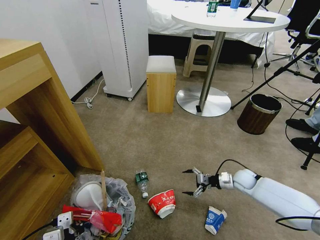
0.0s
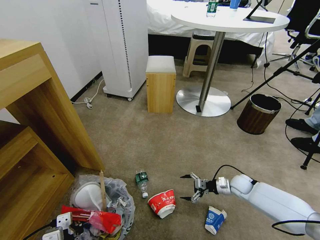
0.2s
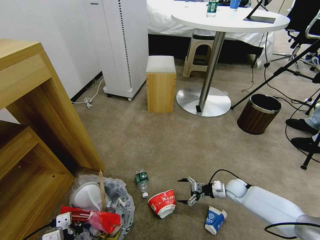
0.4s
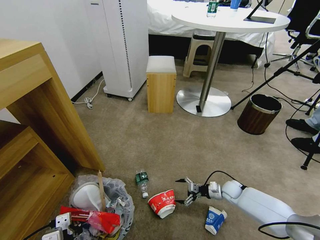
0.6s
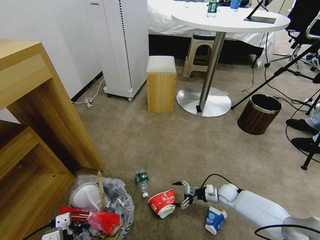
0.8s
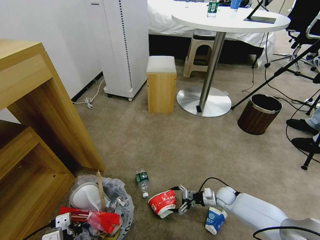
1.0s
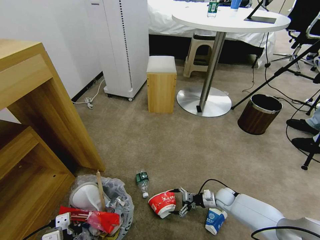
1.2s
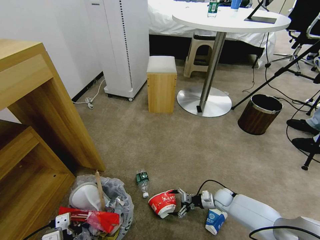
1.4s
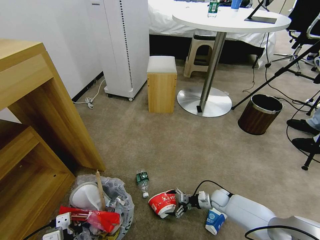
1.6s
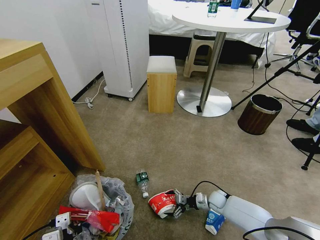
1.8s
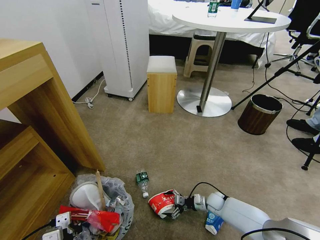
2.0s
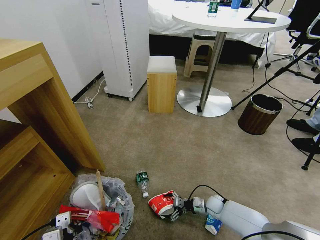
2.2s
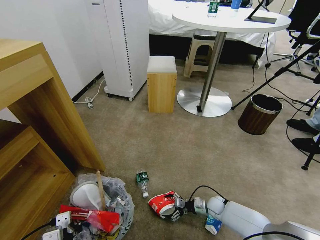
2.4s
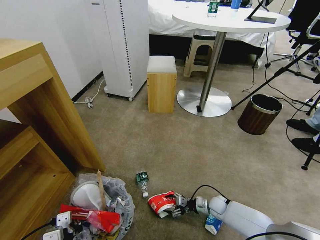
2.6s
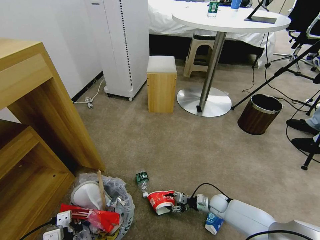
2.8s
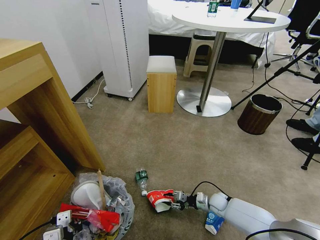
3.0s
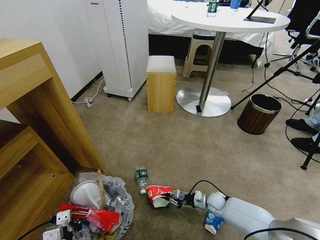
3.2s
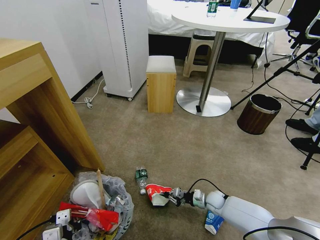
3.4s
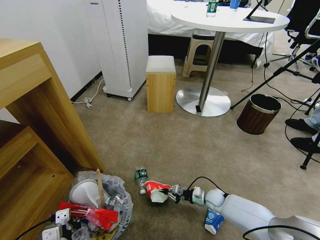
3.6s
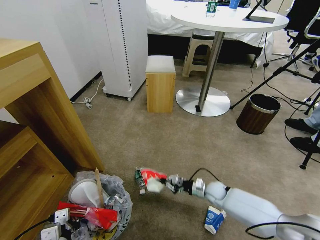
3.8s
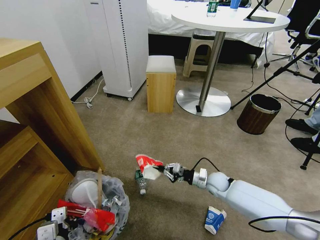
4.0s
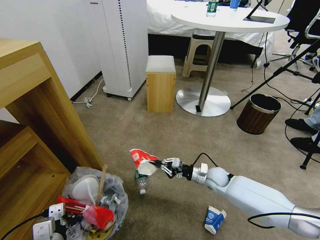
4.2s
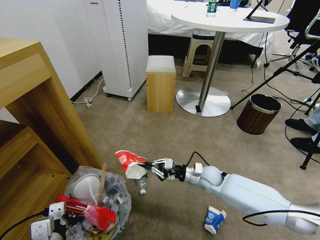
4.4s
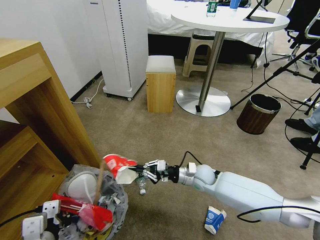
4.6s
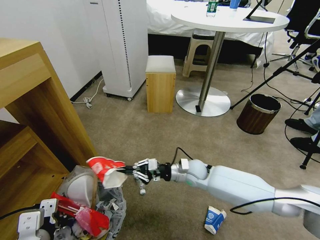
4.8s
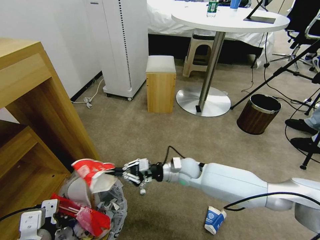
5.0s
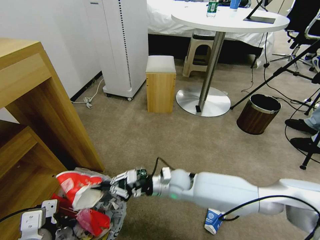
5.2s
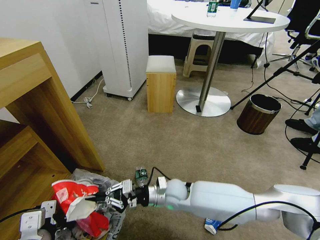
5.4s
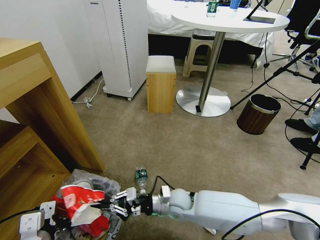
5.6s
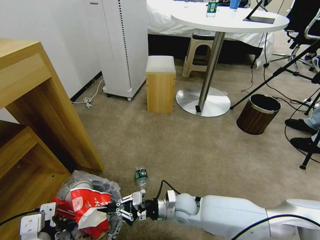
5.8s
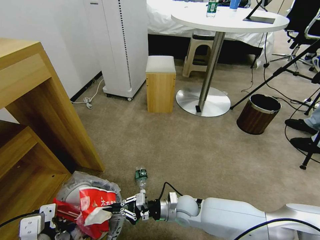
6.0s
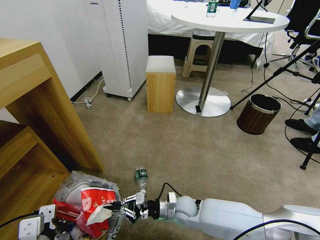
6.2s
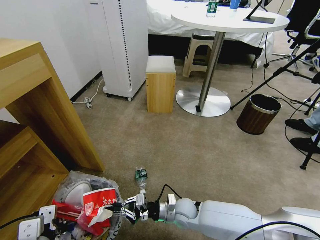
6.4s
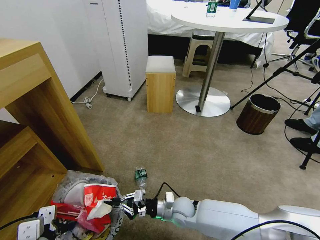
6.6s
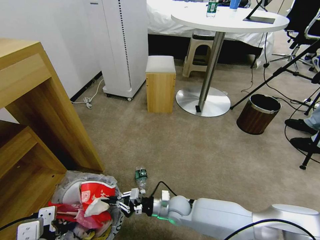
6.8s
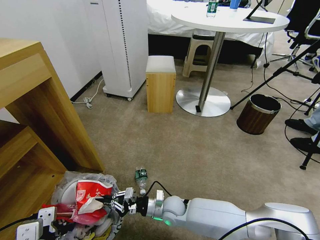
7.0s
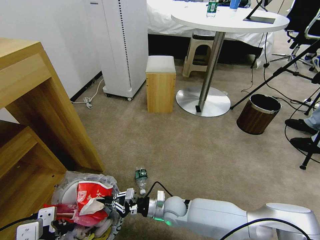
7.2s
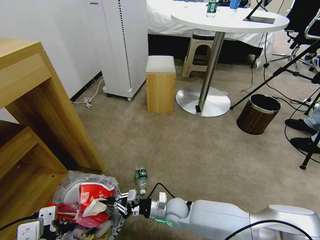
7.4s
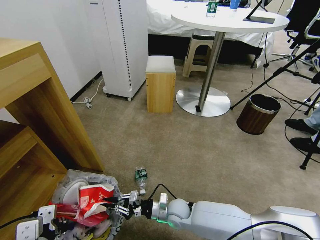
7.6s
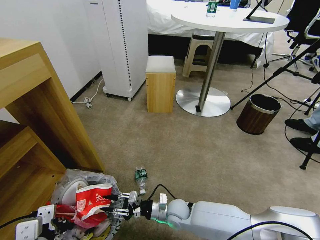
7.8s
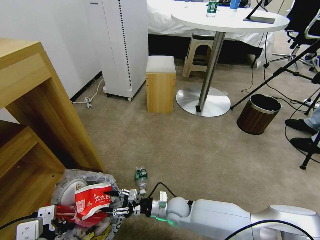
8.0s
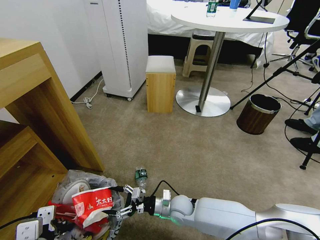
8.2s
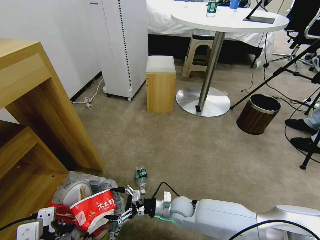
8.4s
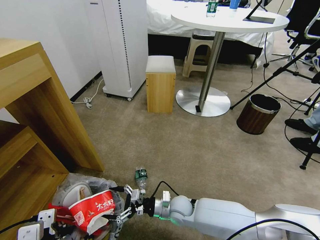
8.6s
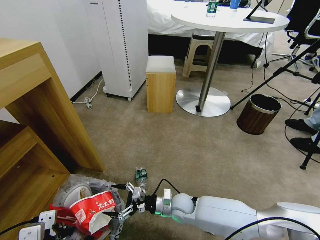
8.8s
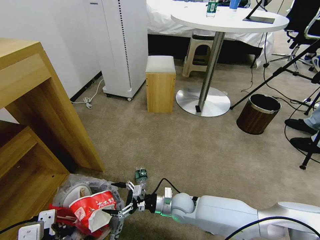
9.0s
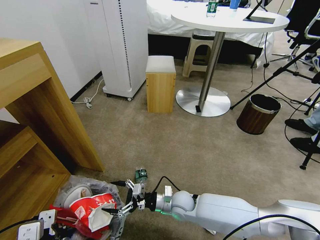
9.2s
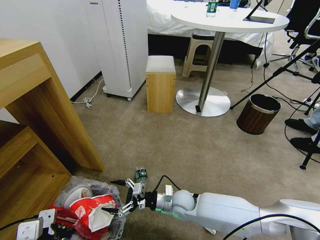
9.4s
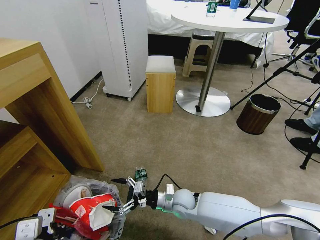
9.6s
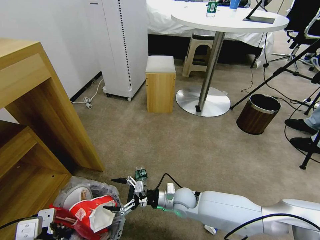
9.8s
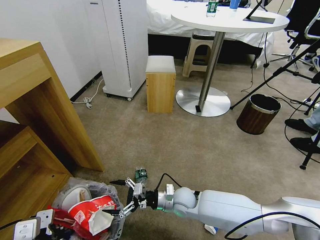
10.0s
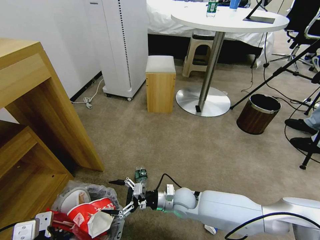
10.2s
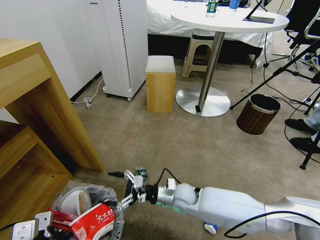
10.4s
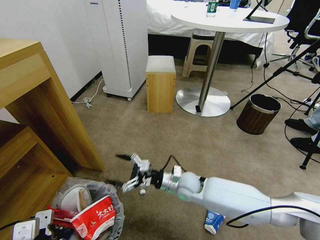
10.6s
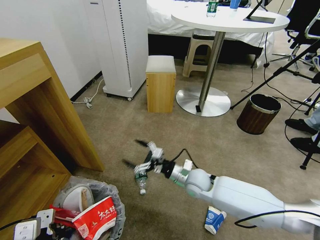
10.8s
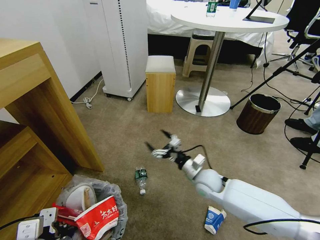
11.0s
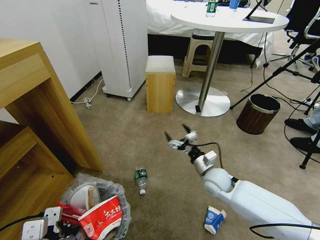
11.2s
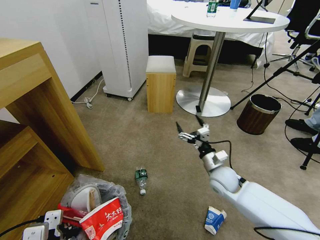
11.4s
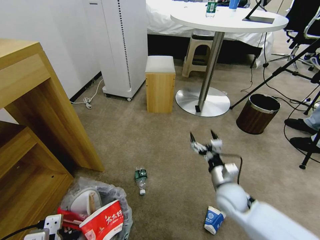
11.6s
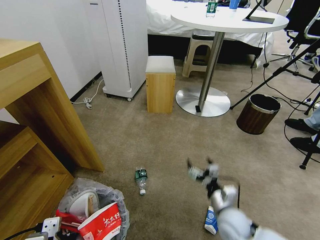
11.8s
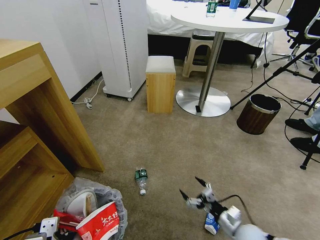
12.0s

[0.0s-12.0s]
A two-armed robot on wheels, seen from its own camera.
Task of the whole recording: Pick up the trash bin and place the garbage on the floor into it.
0.0s to 1.6s: The right gripper shifts roughly 15 cm downward and to the left.
1.6s to 3.0s: The right gripper closes up.
3.0s to 4.4s: The left gripper is displaced upward by approximately 5 cm; the right gripper goes about 20 cm upward and to the left.
4.4s to 6.0s: The right gripper moves backward and to the left, about 15 cm.
6.0s to 7.6s: The grippers make only small movements.
7.6s to 9.0s: The right gripper opens its fingers.
9.0s to 10.4s: The right gripper goes some 5 cm upward.
10.4s to 12.0s: The right gripper is displaced to the right and backward by roughly 25 cm.

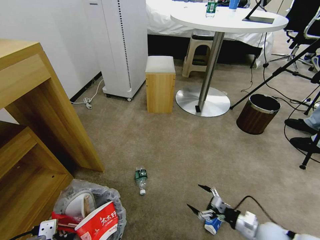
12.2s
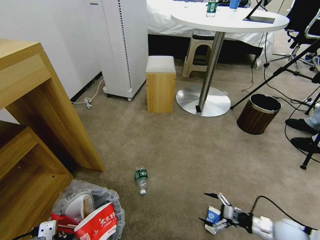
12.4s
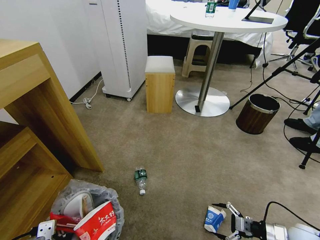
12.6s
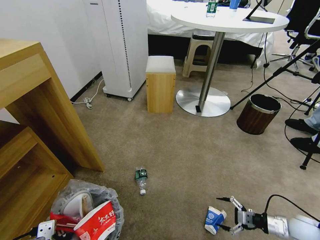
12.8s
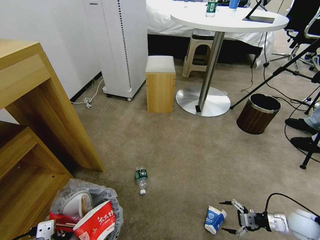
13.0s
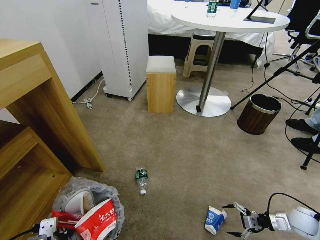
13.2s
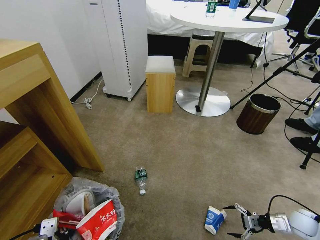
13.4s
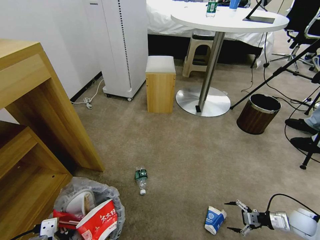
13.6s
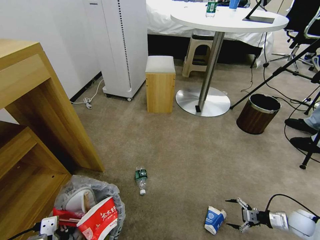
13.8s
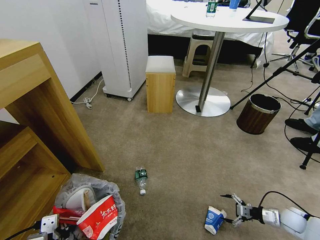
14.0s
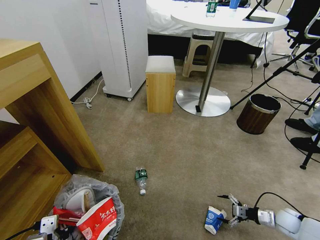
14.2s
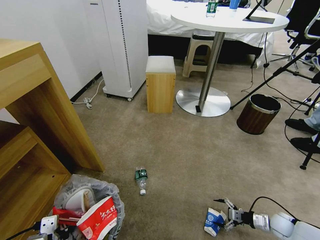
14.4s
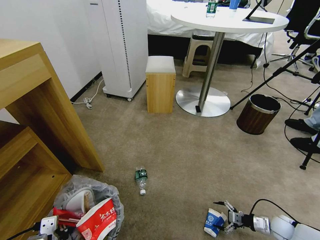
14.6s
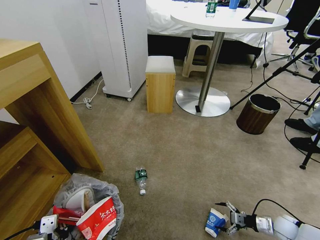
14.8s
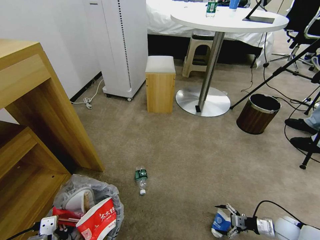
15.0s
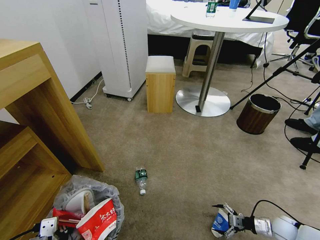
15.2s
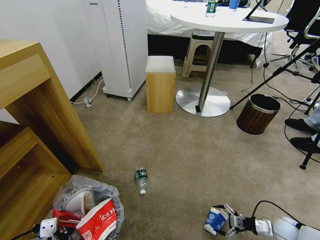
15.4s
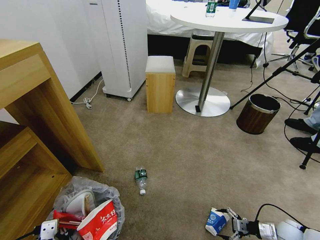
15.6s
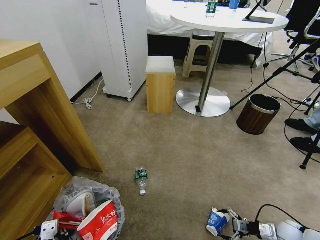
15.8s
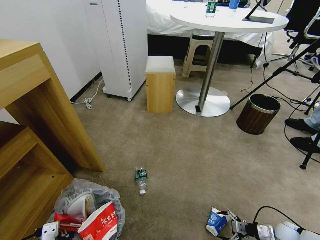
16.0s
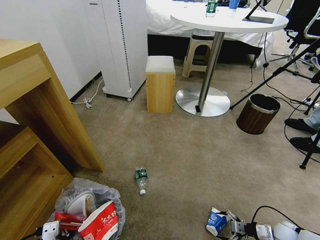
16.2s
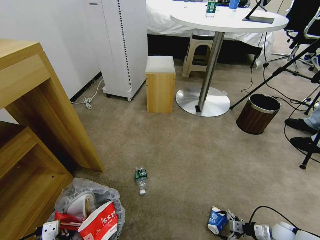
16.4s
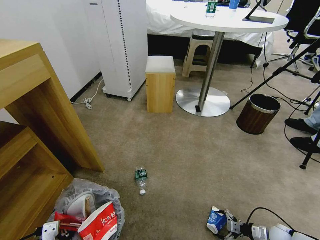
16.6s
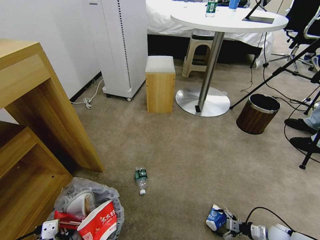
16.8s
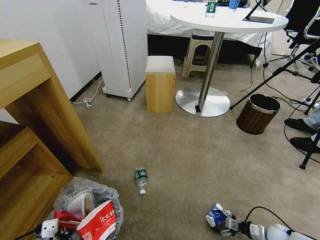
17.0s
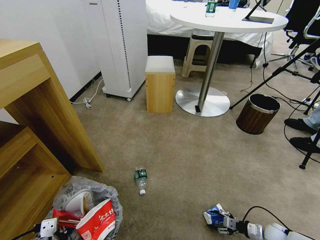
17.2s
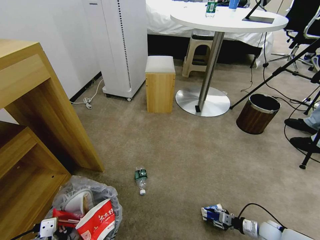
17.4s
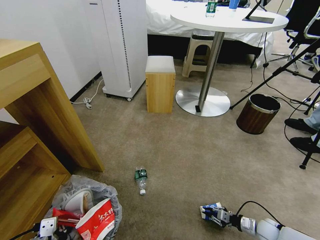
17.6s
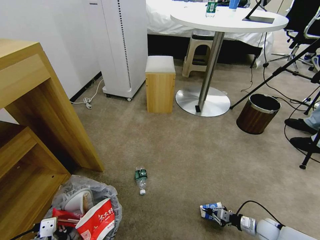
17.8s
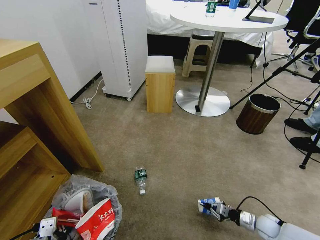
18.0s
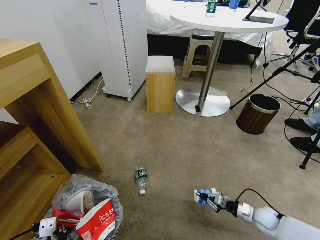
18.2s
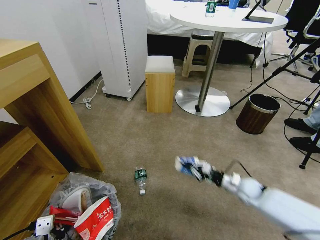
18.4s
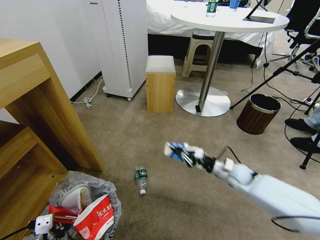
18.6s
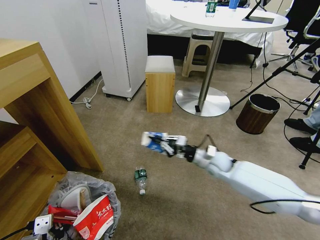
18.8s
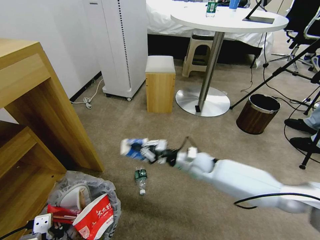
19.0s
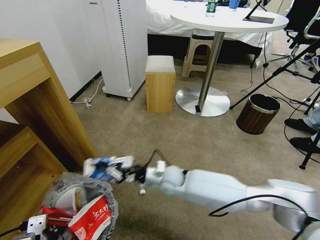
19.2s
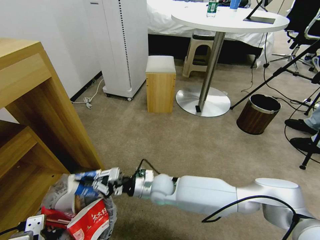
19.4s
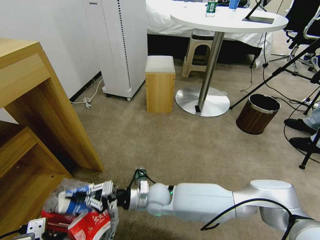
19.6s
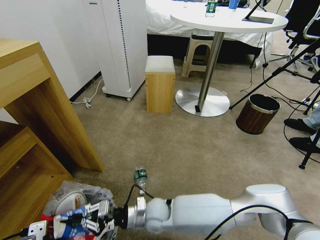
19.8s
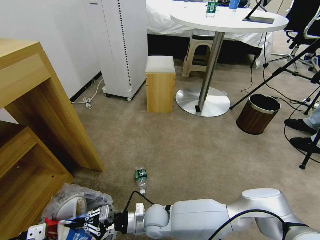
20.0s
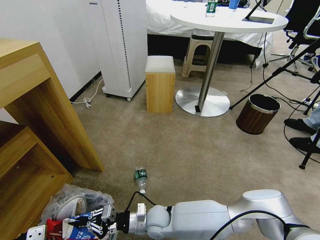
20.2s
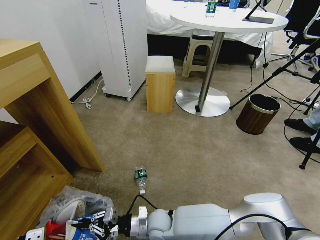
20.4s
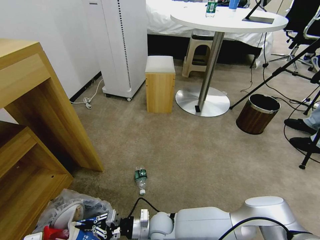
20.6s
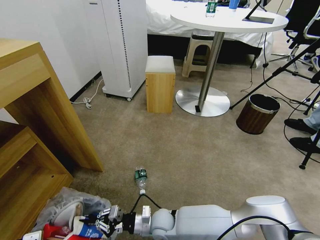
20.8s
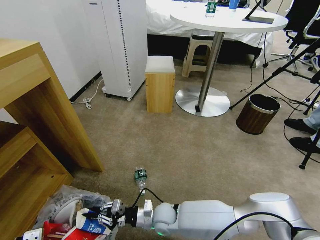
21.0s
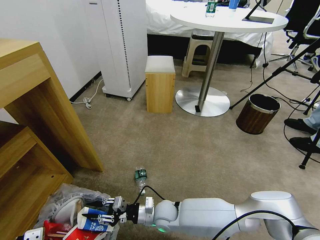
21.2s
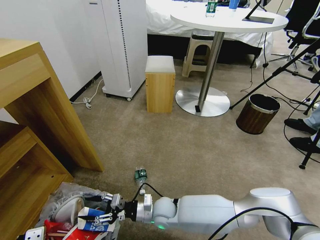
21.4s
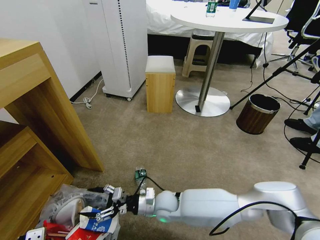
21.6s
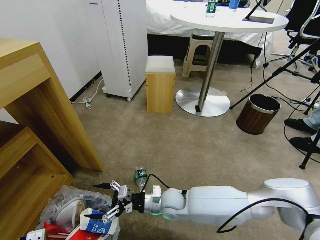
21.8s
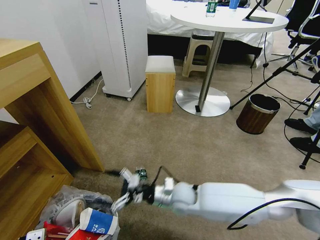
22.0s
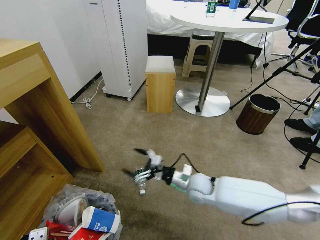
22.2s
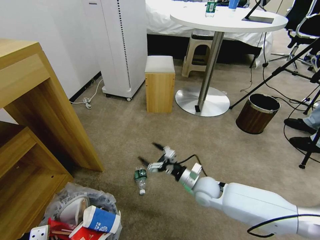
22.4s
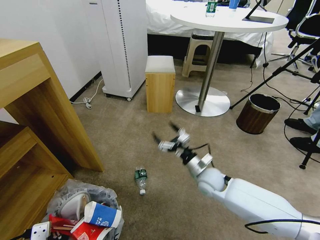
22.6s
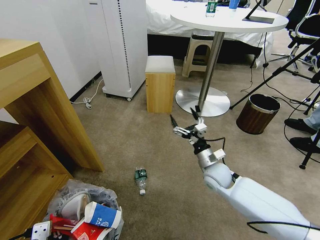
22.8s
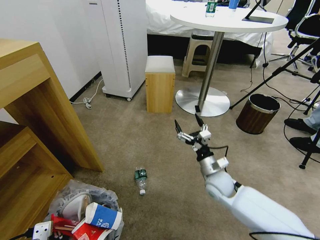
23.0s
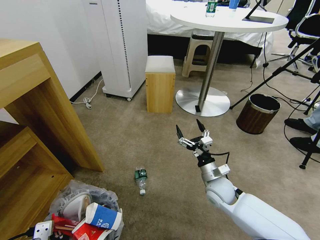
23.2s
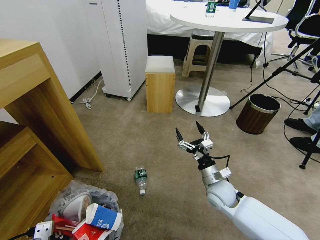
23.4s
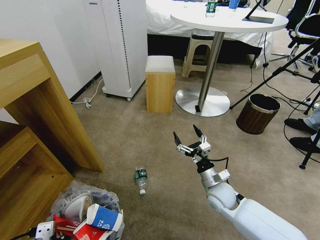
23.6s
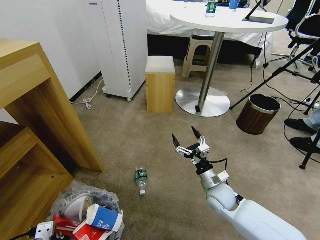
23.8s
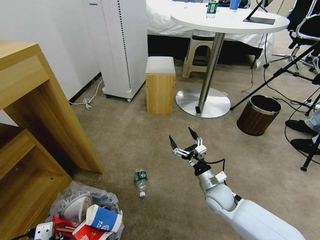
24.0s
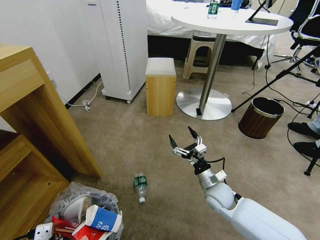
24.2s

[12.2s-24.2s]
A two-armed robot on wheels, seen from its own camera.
Task of the whole recording: Pick up the trash bin and place the garbage on the floor into it.
12.2s to 13.8s: The right gripper shifts some 20 cm to the right.
13.8s to 15.2s: The right gripper is displaced to the left by roughly 5 cm.
15.2s to 16.6s: The grippers stay close to where they were, moving slightly.
16.6s to 18.2s: The right gripper shifts approximately 10 cm to the left, forward and upward, and closes up.
18.2s to 19.8s: The right gripper heads to the left, covering roughly 40 cm.
19.8s to 21.2s: The right gripper travels downward by roughly 5 cm, and opens its fingers.
21.2s to 22.6s: The right gripper is displaced to the right, upward and forward by approximately 20 cm, and opens its fingers.
22.6s to 24.2s: The right gripper moves roughly 5 cm.
